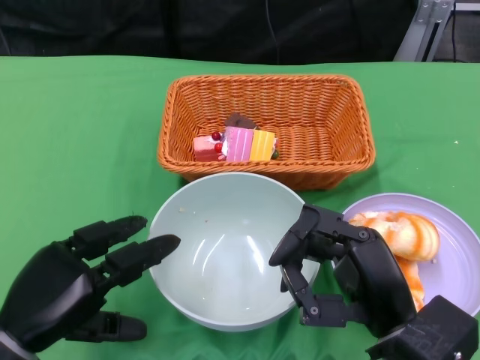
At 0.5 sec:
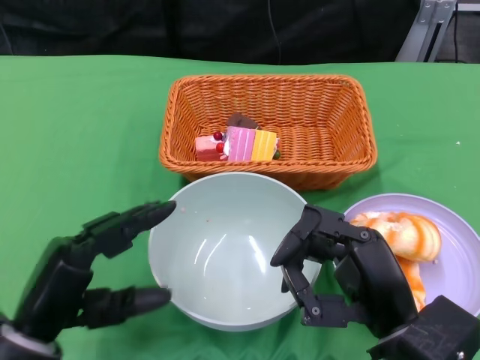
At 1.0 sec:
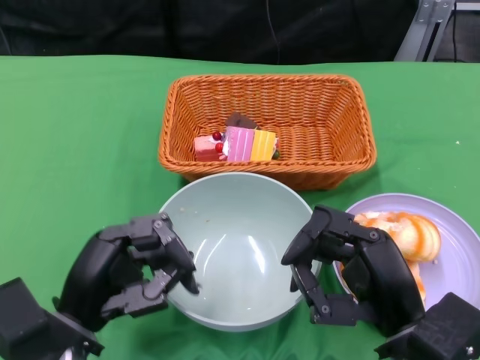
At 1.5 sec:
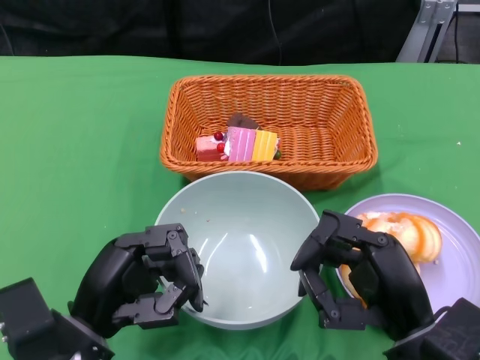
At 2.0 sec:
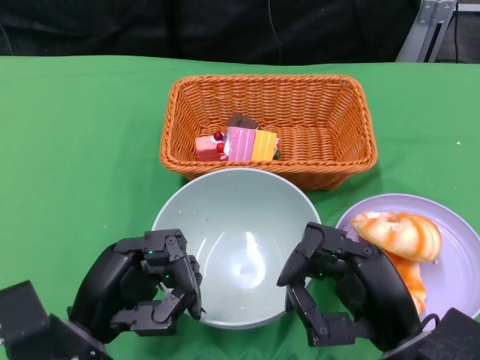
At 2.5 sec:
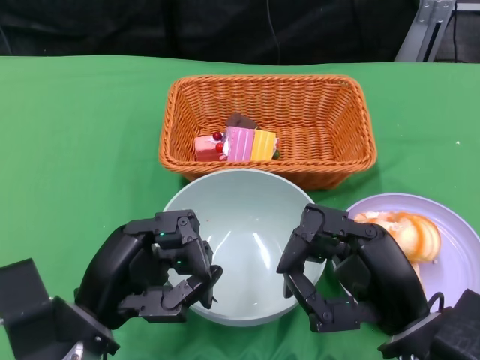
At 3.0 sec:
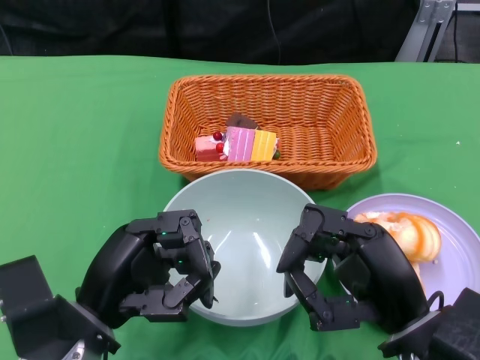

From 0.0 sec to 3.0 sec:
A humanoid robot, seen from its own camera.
From 0.0 sec to 1.5 sec: The left hand is displaced to the right by some 5 cm.
From 1.5 sec to 3.0 sec: The hands make only small movements.

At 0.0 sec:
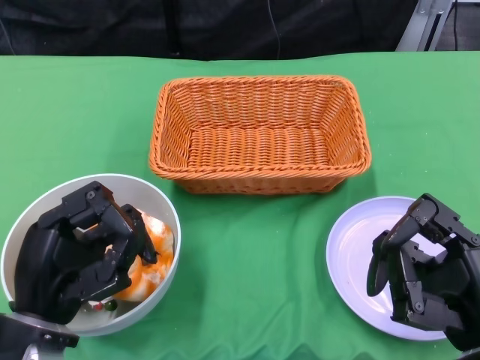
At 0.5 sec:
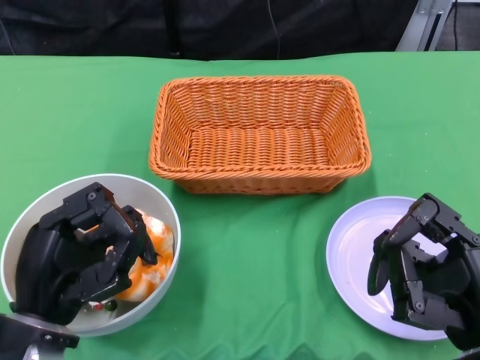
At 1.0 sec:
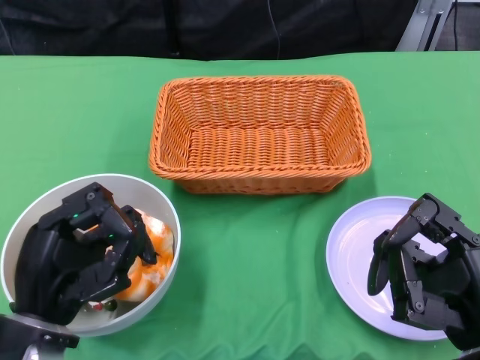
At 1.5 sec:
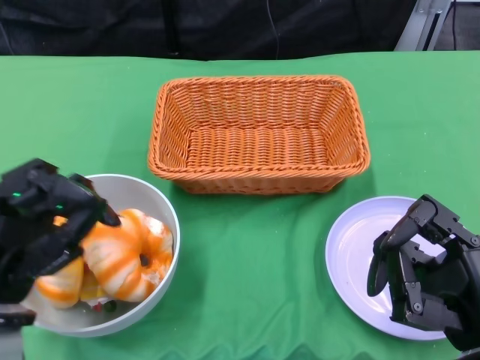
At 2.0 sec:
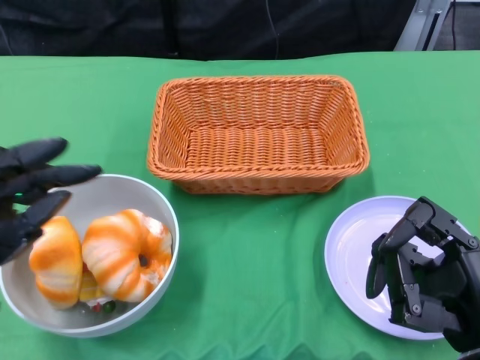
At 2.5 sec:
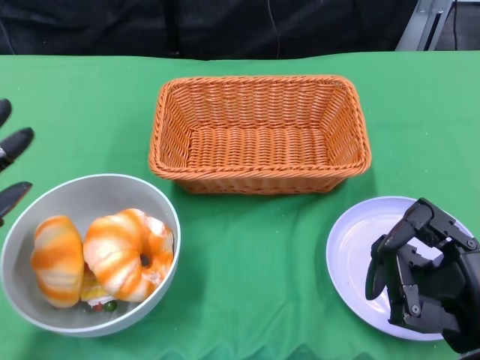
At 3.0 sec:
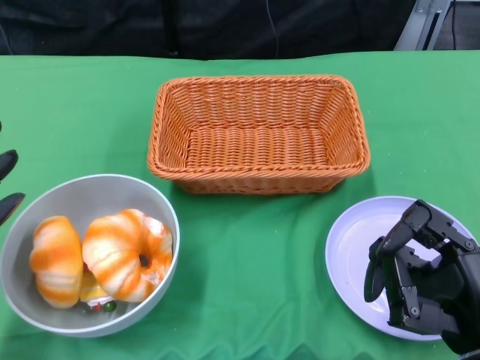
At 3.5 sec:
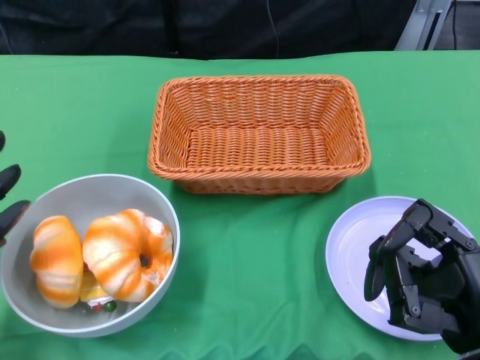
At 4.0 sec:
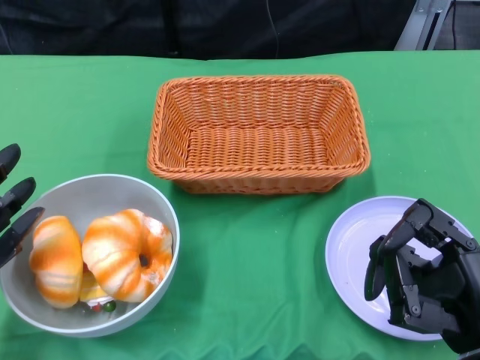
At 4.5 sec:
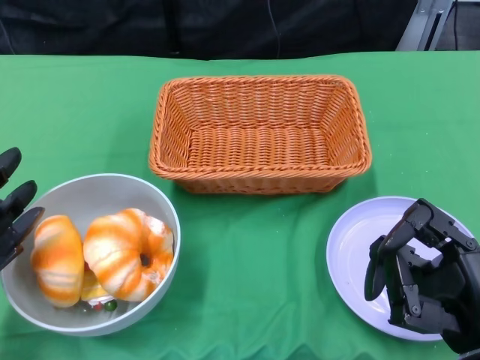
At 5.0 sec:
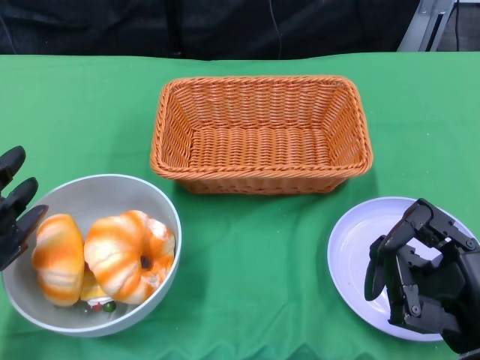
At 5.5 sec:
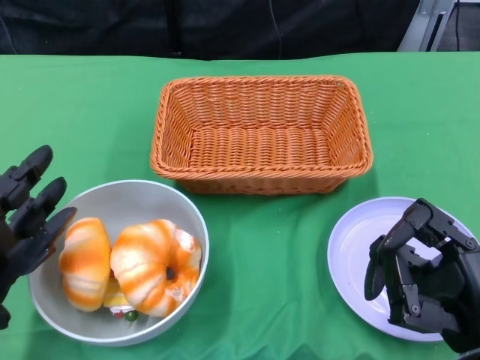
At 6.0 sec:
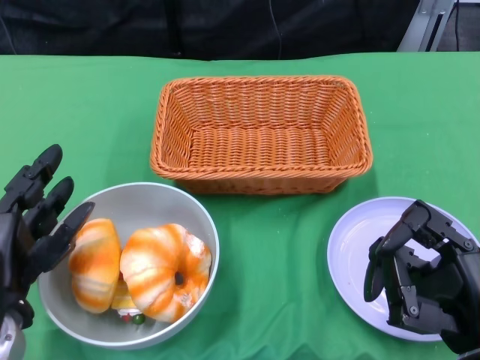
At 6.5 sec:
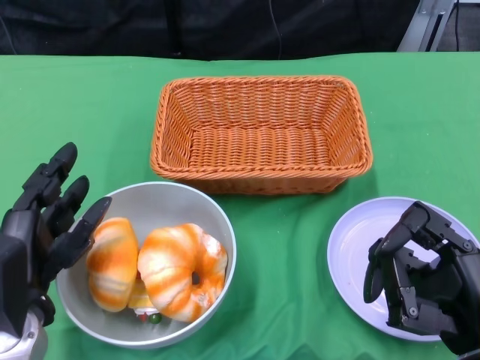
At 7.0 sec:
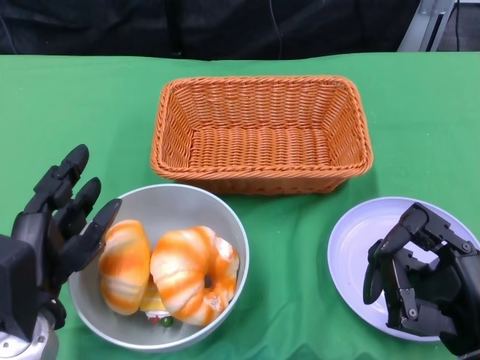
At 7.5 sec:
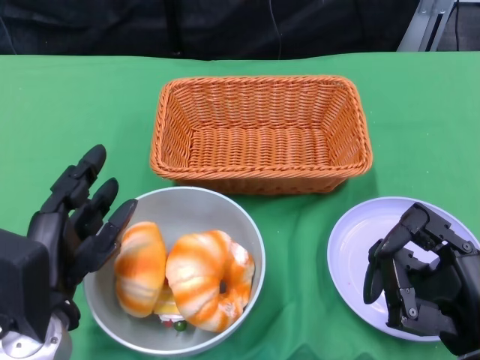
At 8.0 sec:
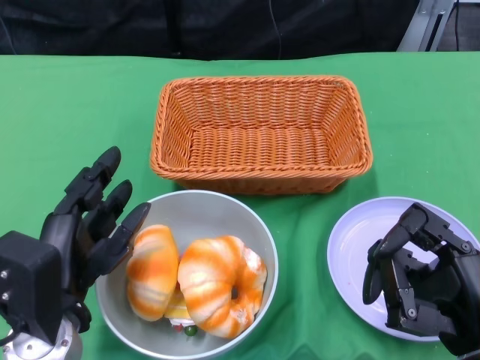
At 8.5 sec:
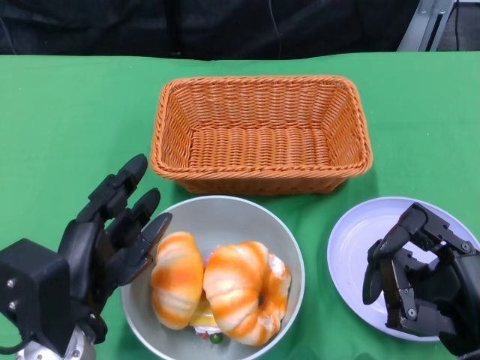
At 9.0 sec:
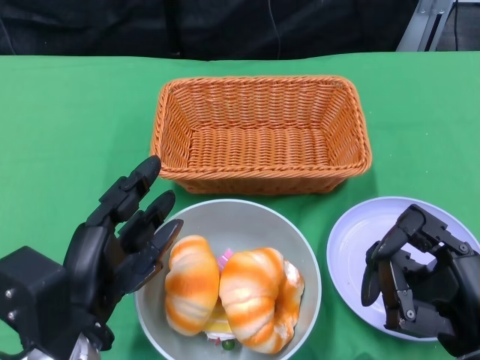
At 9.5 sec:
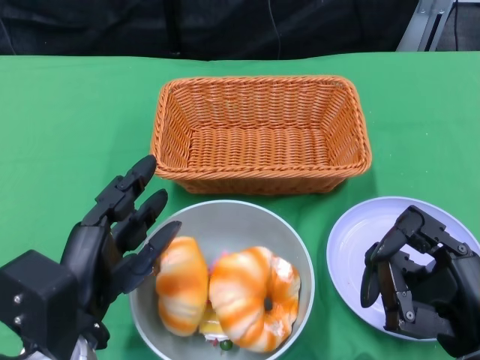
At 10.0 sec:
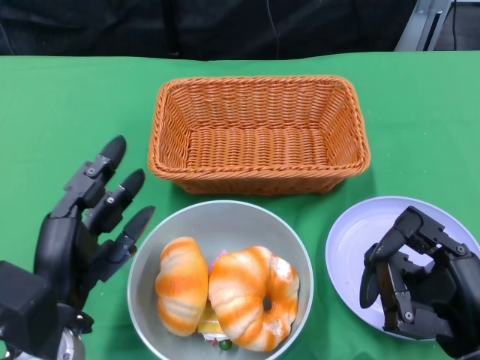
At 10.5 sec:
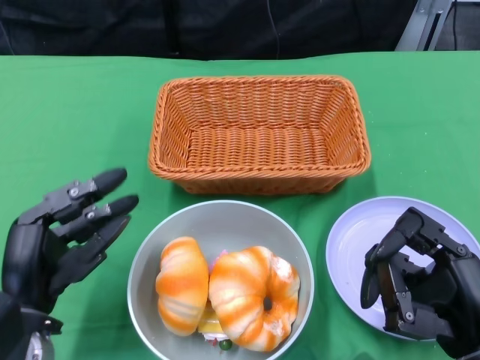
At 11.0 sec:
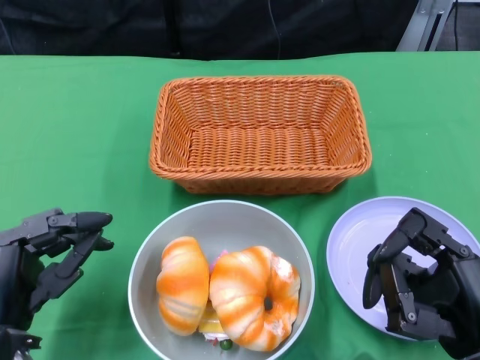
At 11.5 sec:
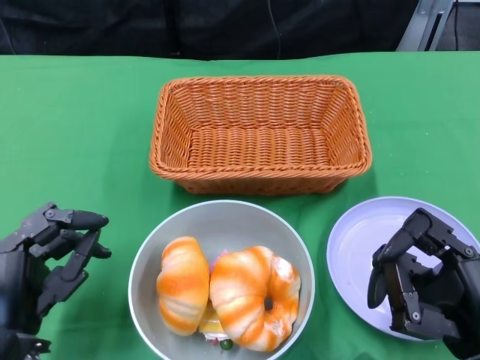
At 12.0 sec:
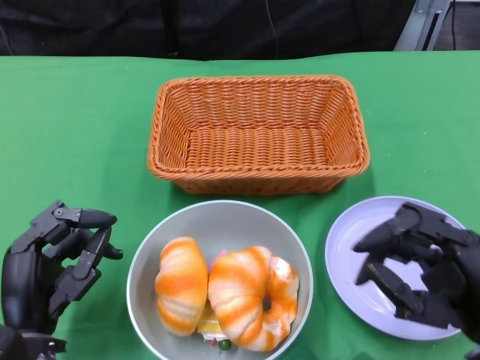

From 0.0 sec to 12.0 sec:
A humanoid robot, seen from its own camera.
Step, from 0.0 sec to 11.0 sec: Push the bowl to the center of the table using the left gripper.
From 2.0 sec to 4.0 sec: The left hand is displaced downward by about 5 cm.
From 4.0 sec to 6.0 sec: The left hand travels to the right by some 5 cm.
From 6.0 sec to 8.0 sec: The left hand shifts roughly 5 cm to the right.
From 10.0 sec to 12.0 sec: The left hand is displaced downward by approximately 5 cm.

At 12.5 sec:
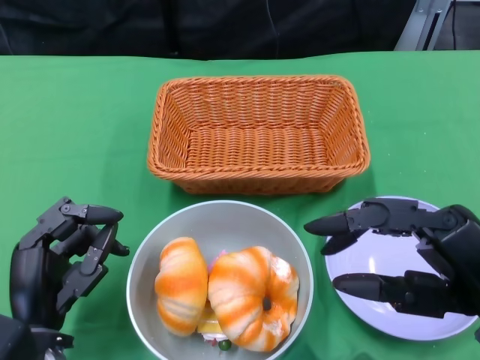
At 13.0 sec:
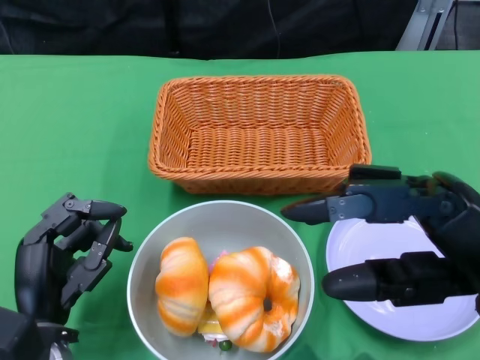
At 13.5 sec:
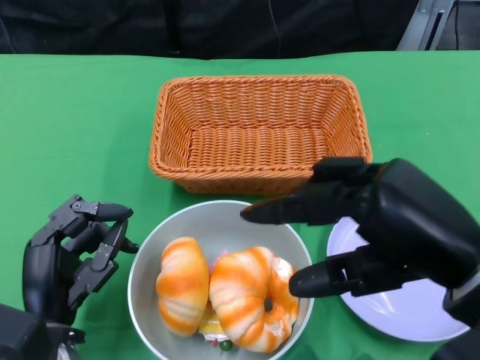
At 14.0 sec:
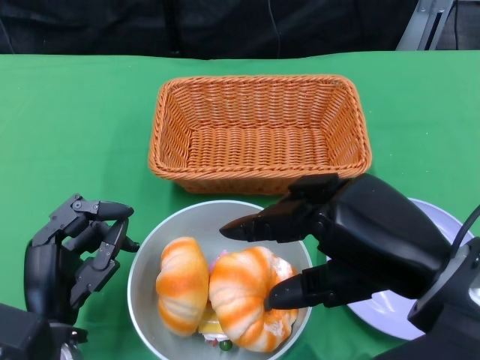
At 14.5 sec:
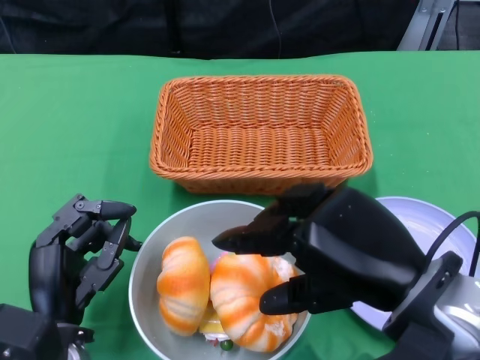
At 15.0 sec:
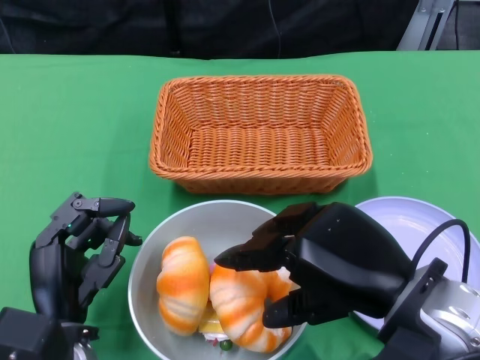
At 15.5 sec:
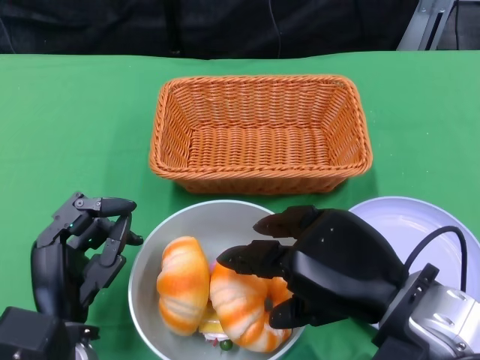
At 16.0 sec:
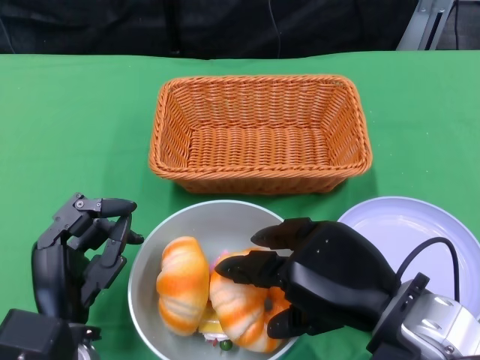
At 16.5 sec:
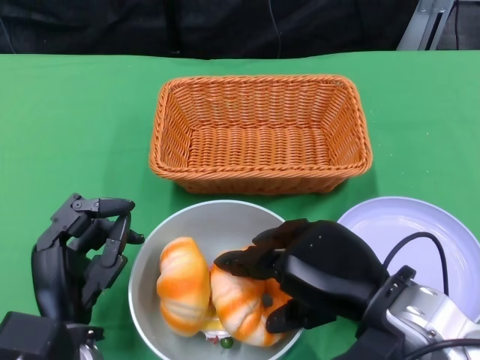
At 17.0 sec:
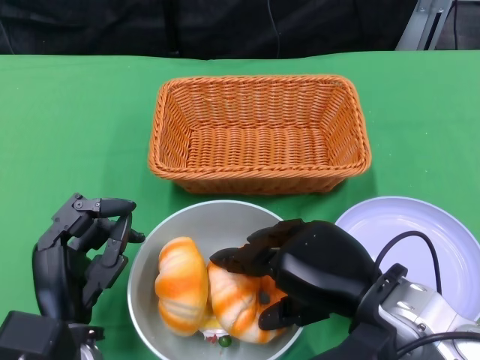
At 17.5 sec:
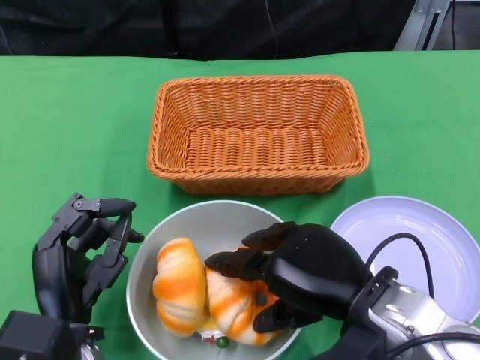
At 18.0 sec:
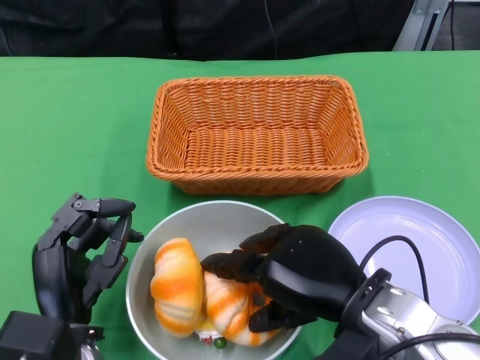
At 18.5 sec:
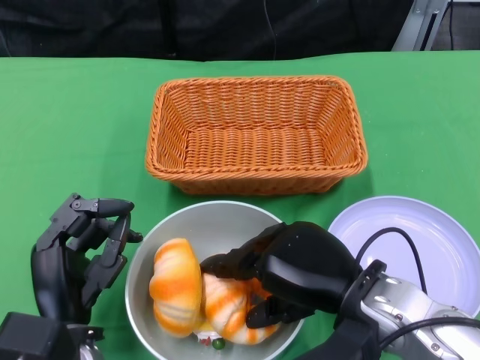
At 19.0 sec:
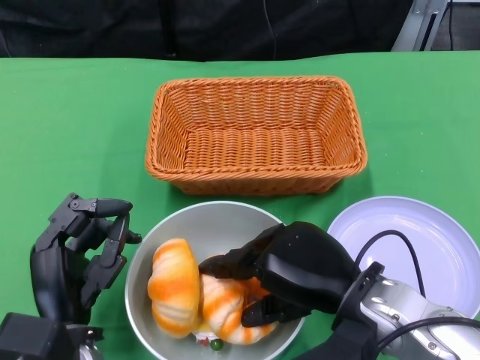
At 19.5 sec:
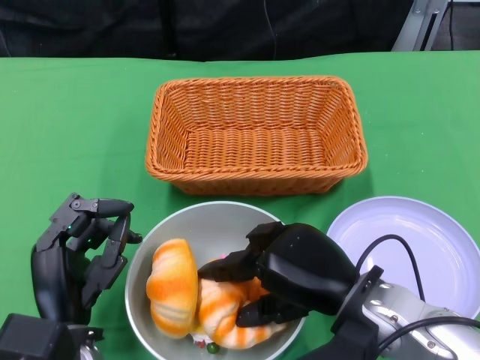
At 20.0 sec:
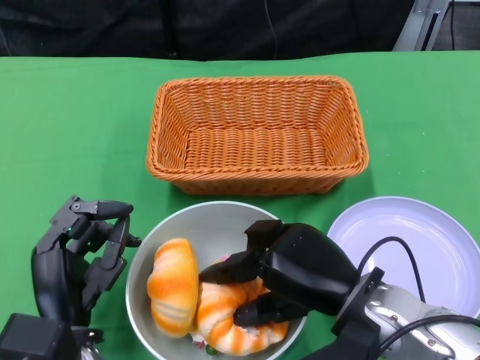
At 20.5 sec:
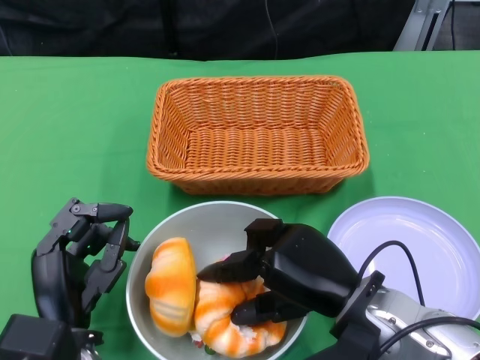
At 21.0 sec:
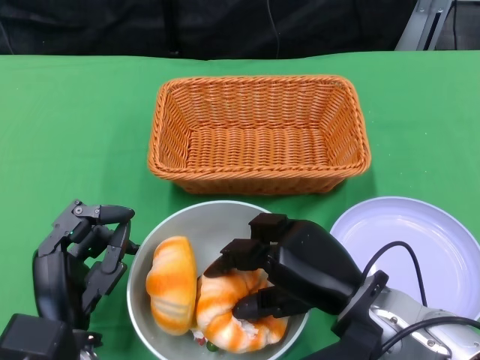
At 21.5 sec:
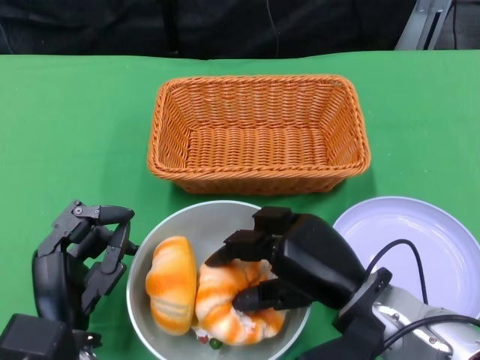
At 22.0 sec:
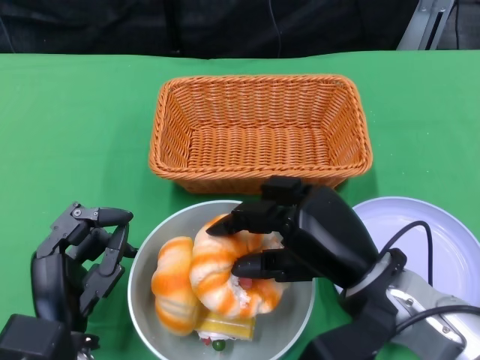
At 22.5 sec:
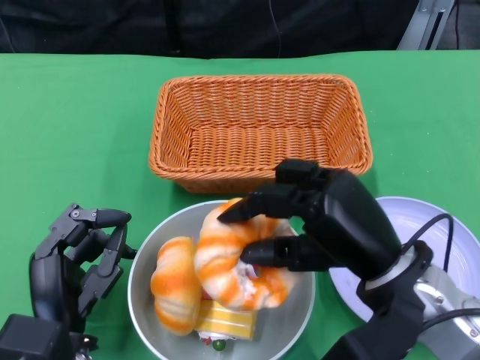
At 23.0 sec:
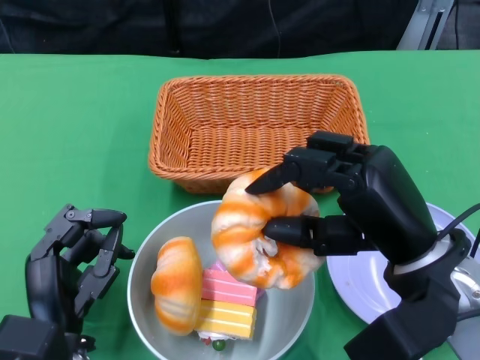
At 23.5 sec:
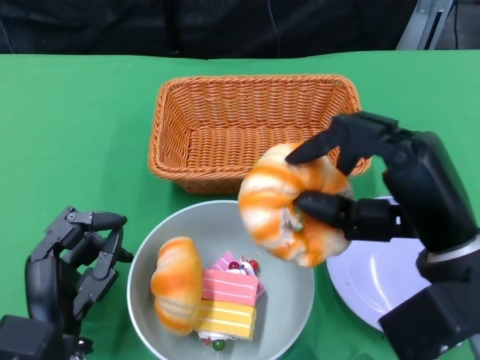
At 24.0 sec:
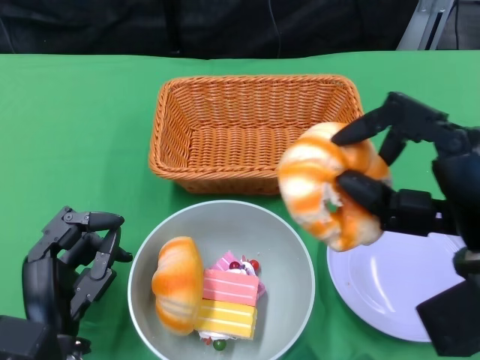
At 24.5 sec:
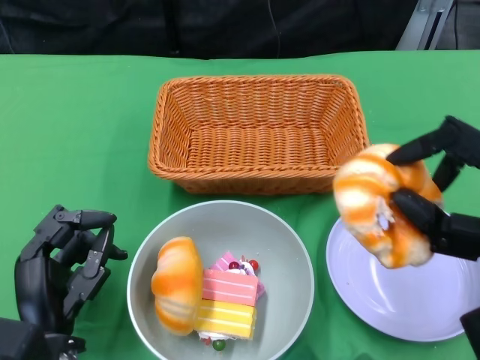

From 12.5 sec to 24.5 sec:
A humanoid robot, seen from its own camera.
From 12.5 sec to 14.5 sec: The right hand shifts roughly 5 cm to the left.
From 14.5 sec to 16.5 sec: The right hand is displaced downward by some 5 cm.
From 16.5 sec to 20.5 sec: The hands stay close to where they were, moving slightly.
From 20.5 sec to 22.5 sec: The right hand changes place by some 5 cm.
From 22.5 sec to 24.5 sec: The right hand goes about 10 cm to the right.
